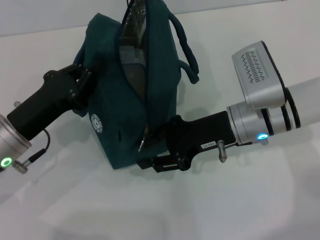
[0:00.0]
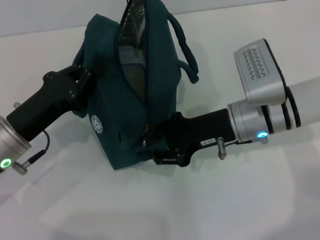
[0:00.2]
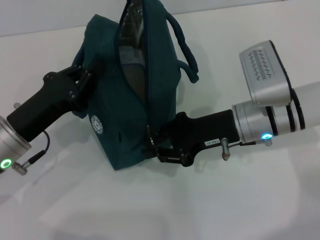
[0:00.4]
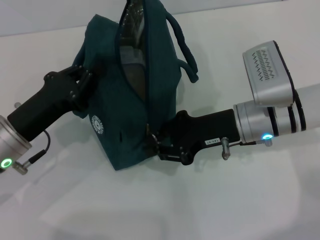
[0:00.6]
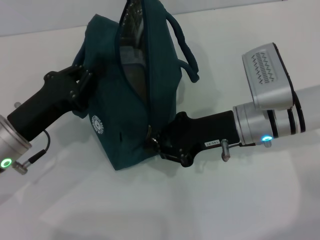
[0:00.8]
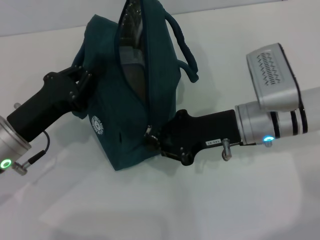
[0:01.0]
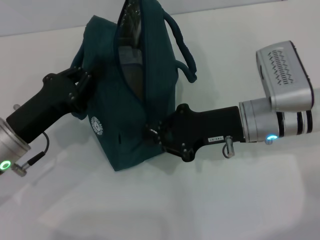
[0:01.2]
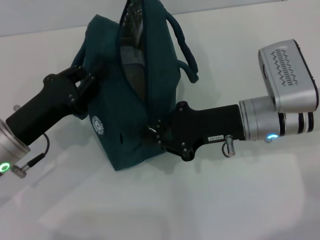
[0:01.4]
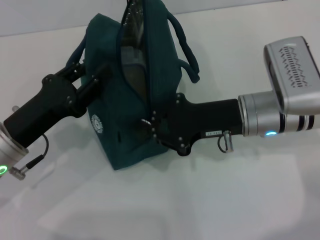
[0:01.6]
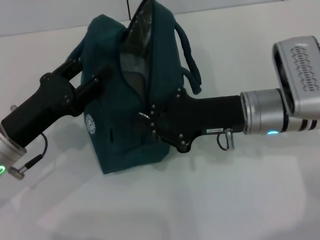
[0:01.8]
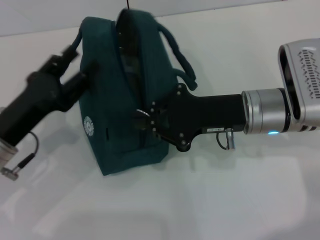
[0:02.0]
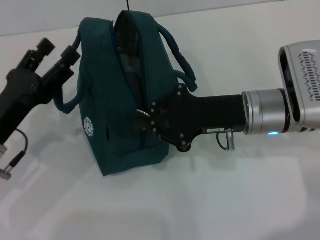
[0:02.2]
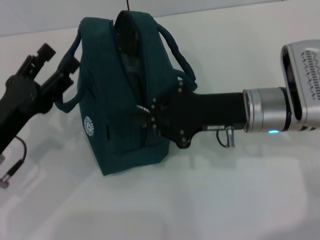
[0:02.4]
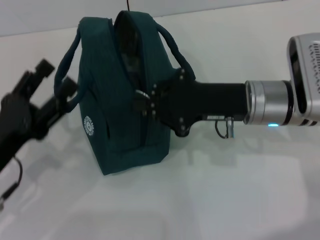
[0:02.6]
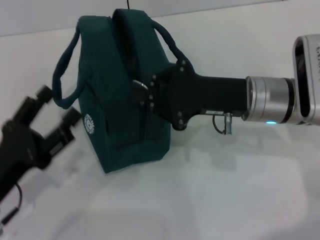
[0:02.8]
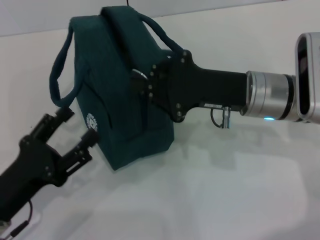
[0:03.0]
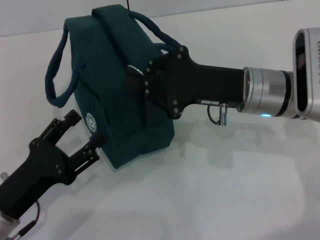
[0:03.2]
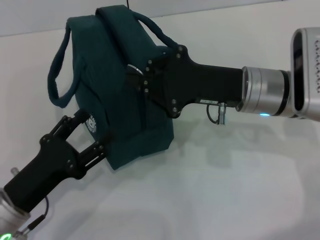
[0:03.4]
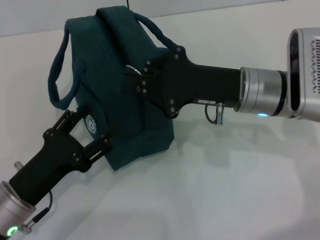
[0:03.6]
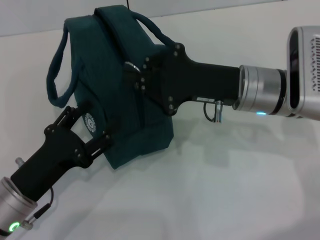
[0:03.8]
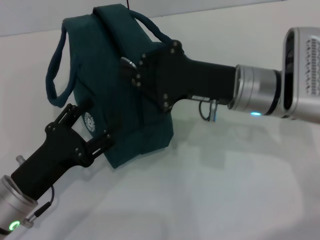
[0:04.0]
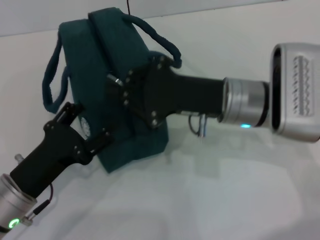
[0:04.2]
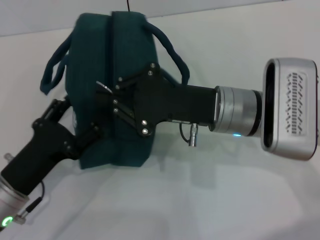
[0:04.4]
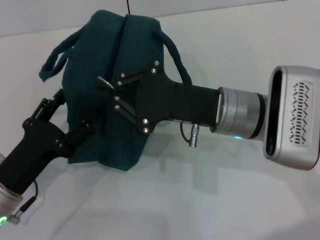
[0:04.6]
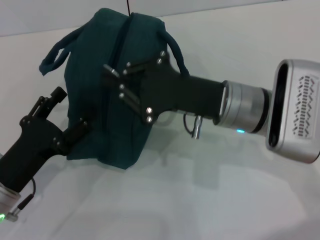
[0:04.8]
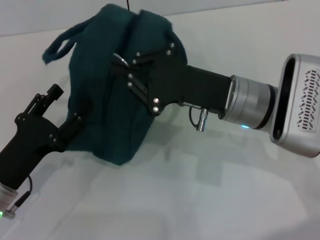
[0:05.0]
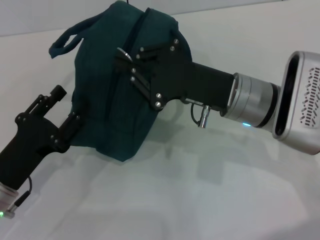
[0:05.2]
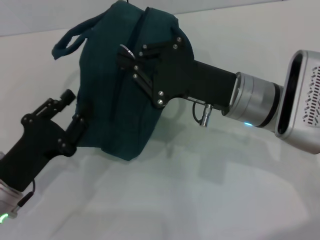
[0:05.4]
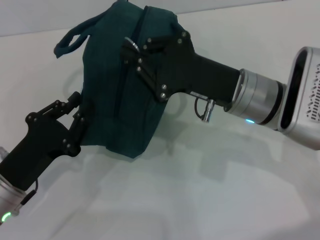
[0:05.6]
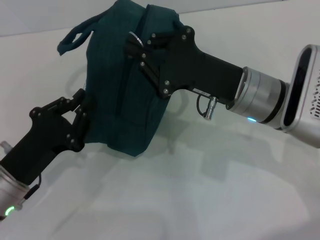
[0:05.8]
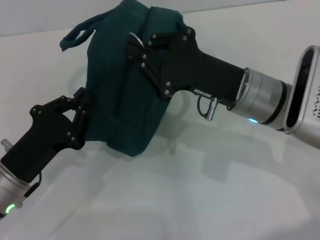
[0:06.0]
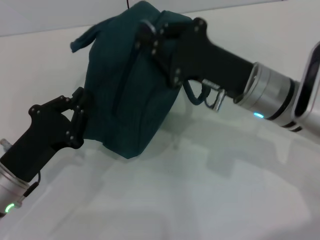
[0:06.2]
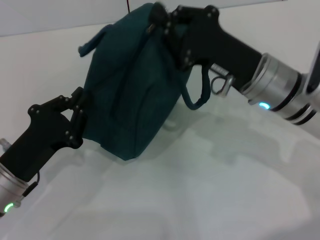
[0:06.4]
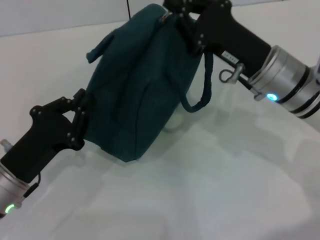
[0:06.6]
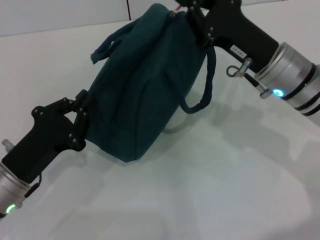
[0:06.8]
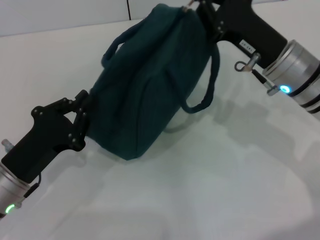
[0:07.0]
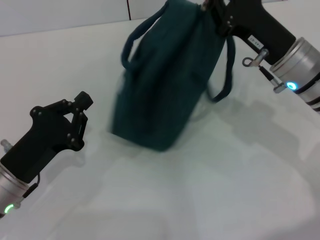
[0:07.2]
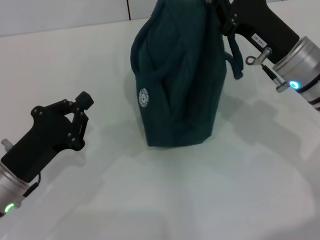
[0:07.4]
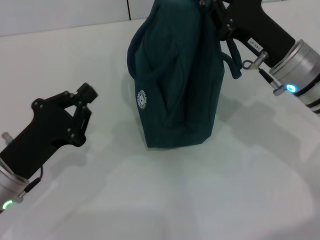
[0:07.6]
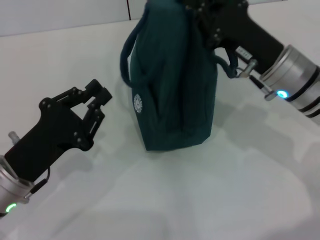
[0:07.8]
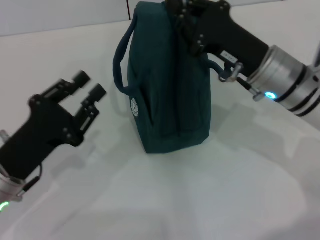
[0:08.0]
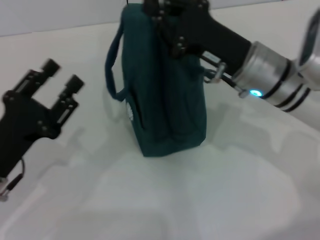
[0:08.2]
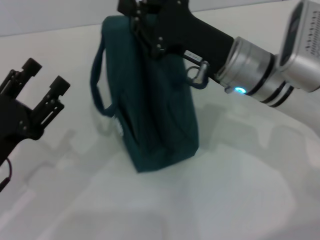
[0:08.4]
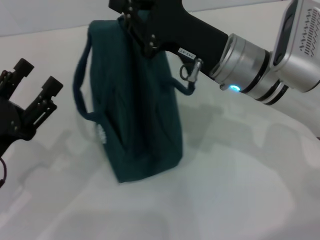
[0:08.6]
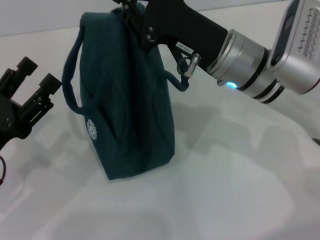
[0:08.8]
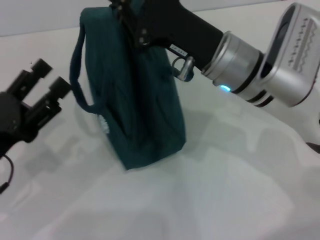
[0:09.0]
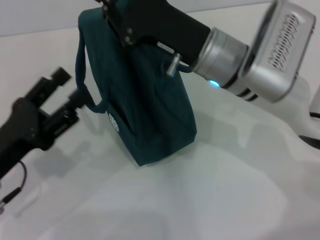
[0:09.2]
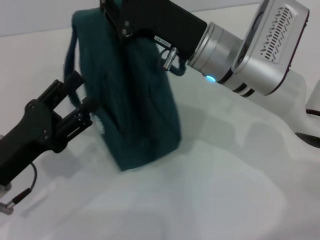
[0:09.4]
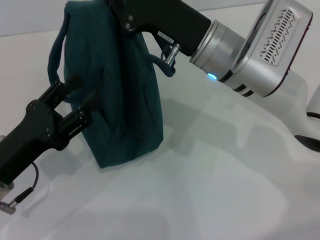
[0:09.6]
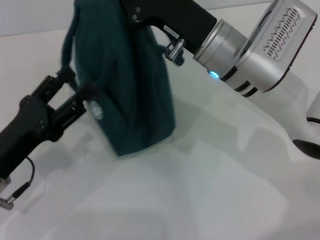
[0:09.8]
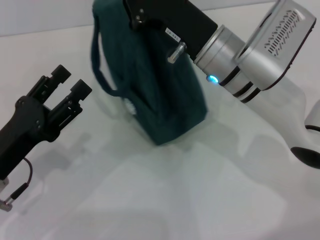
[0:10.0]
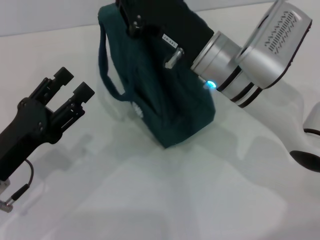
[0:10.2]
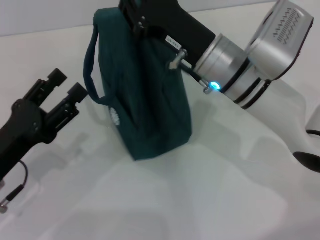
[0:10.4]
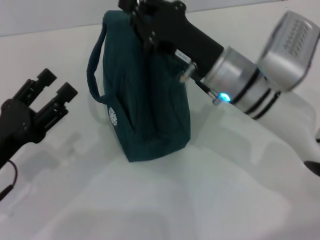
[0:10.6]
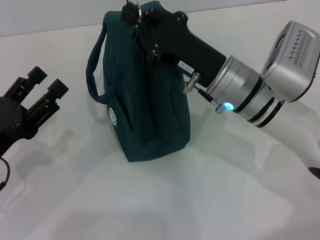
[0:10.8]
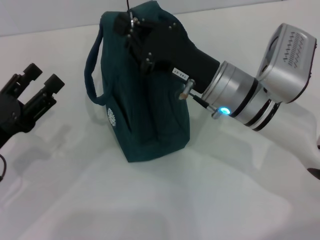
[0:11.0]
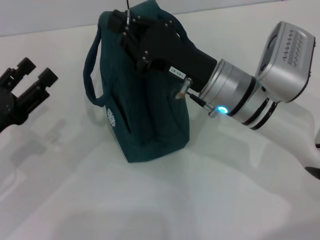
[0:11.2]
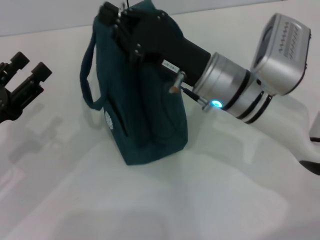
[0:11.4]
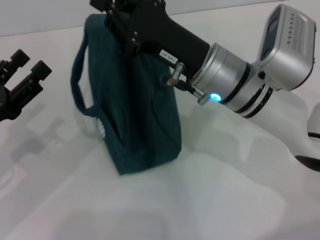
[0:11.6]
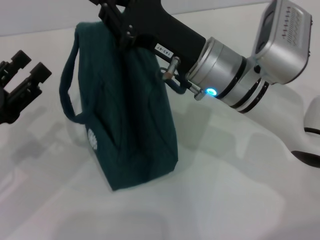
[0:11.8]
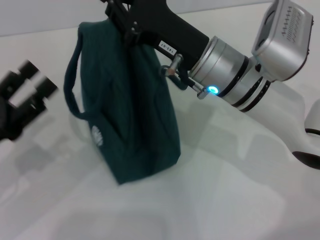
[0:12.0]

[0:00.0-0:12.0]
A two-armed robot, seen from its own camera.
0:00.0 to 0:01.6: The right gripper closes up.
0:01.6 to 0:03.0: The left gripper travels backward by about 10 cm, and opens.
0:04.4 to 0:06.0: The left gripper closes its fingers.
0:06.0 to 0:07.6: The right gripper is displaced to the right by approximately 5 cm.
0:07.6 to 0:09.0: The right gripper heads to the left, covering approximately 10 cm. The left gripper opens its fingers.

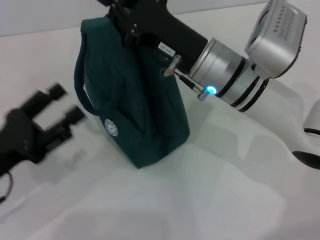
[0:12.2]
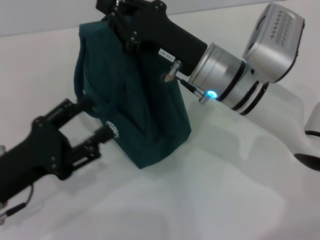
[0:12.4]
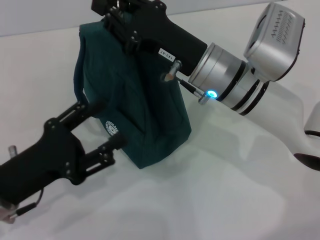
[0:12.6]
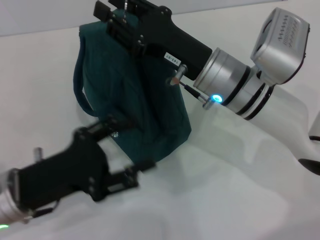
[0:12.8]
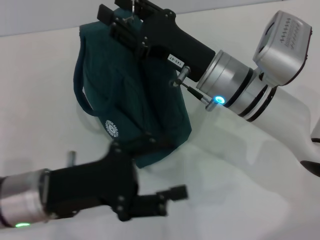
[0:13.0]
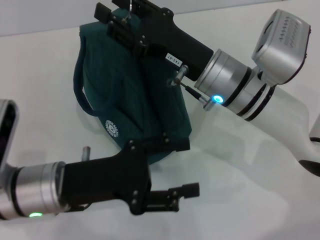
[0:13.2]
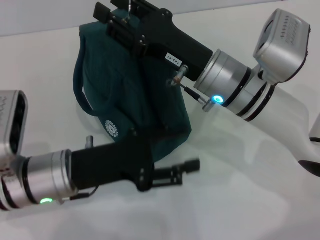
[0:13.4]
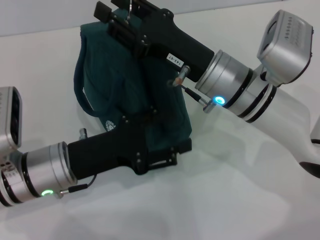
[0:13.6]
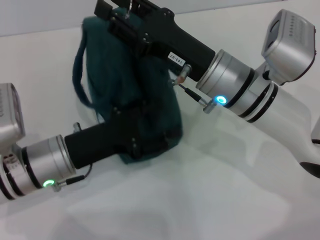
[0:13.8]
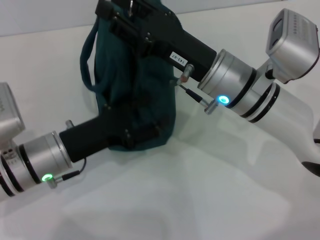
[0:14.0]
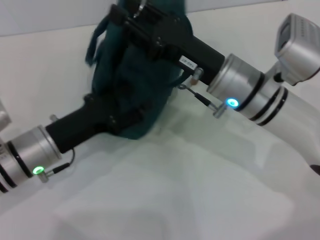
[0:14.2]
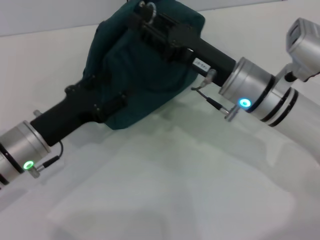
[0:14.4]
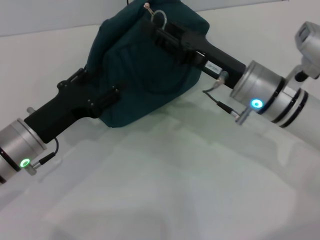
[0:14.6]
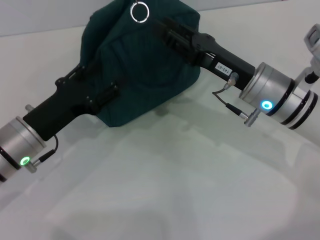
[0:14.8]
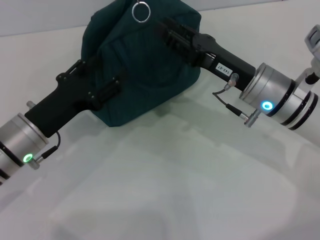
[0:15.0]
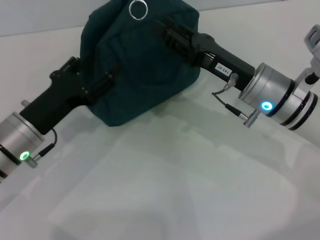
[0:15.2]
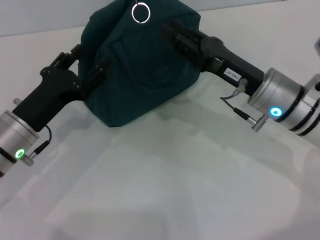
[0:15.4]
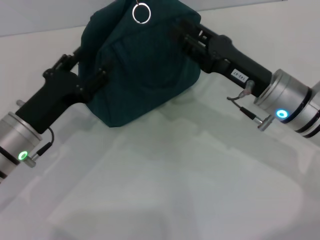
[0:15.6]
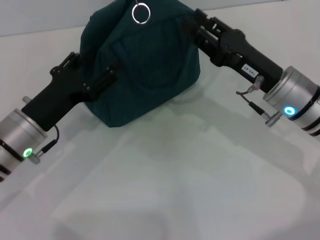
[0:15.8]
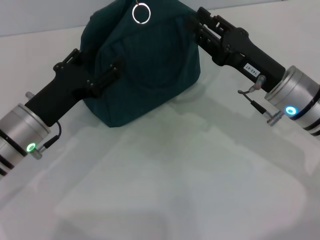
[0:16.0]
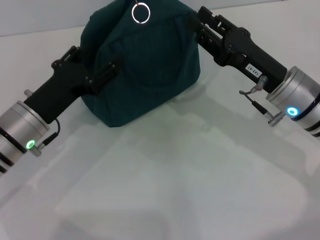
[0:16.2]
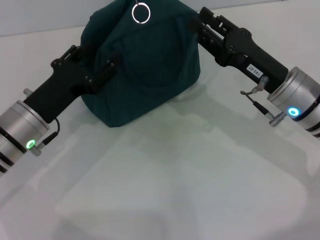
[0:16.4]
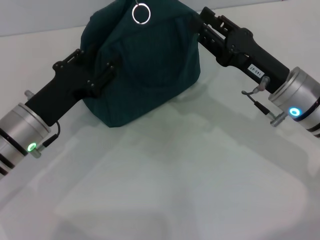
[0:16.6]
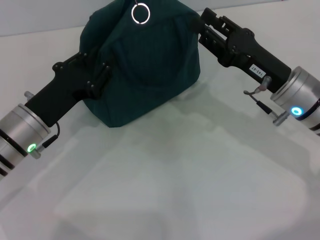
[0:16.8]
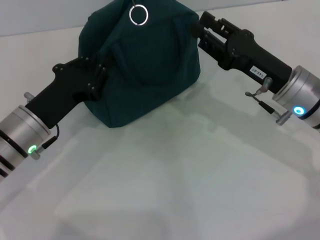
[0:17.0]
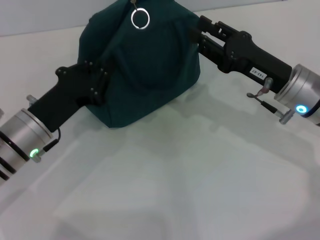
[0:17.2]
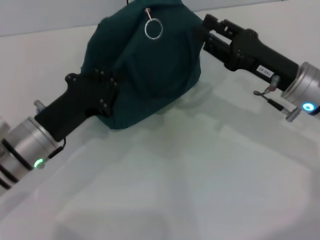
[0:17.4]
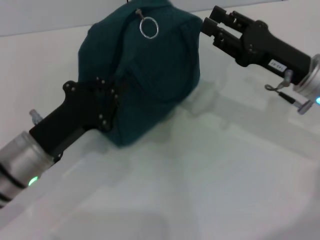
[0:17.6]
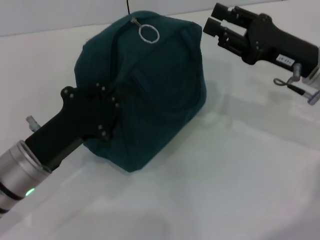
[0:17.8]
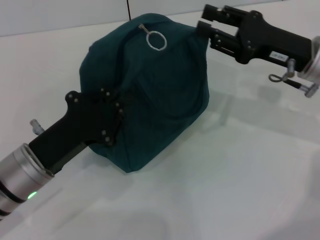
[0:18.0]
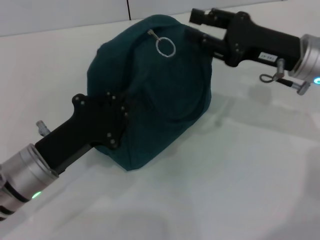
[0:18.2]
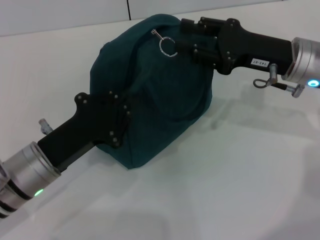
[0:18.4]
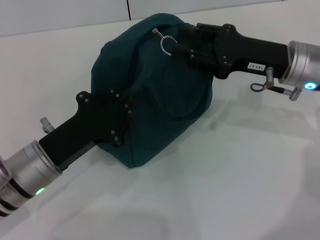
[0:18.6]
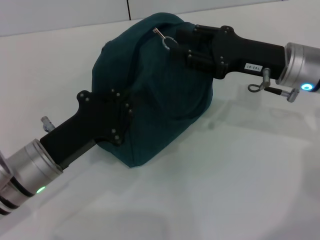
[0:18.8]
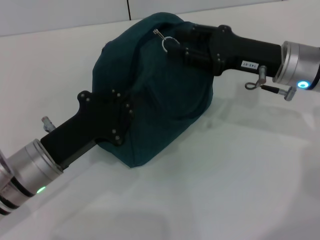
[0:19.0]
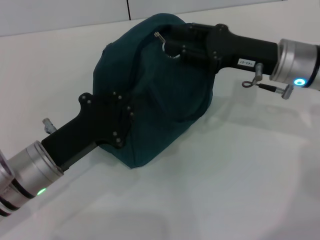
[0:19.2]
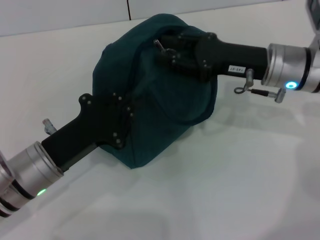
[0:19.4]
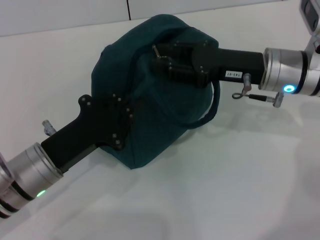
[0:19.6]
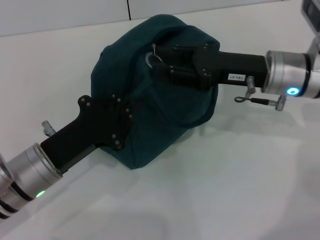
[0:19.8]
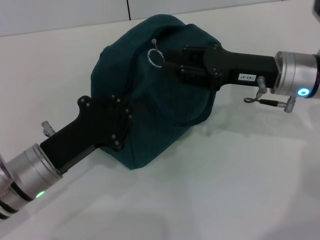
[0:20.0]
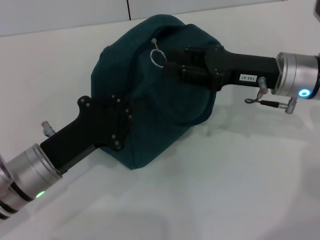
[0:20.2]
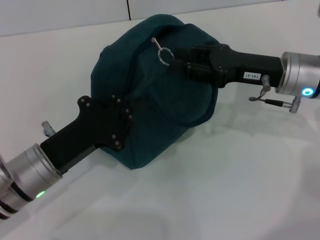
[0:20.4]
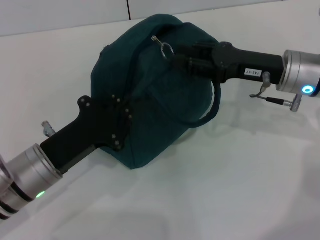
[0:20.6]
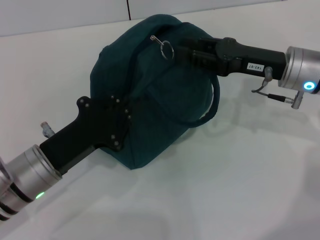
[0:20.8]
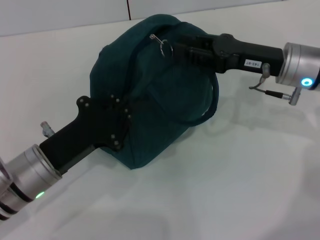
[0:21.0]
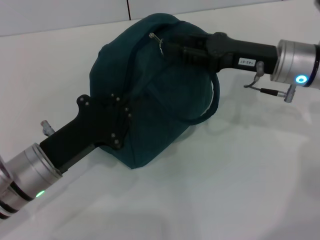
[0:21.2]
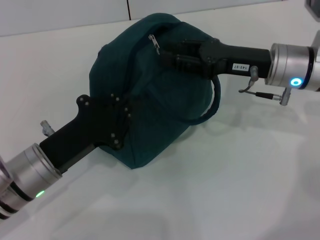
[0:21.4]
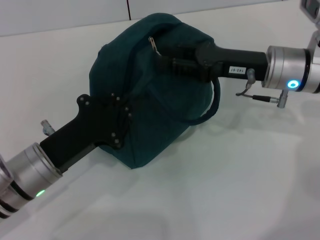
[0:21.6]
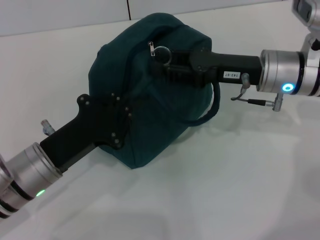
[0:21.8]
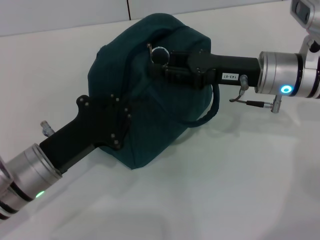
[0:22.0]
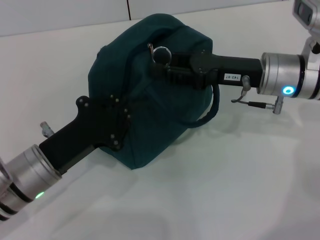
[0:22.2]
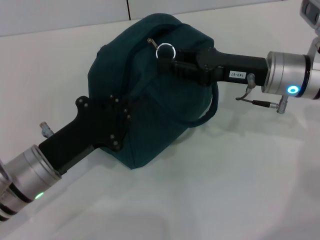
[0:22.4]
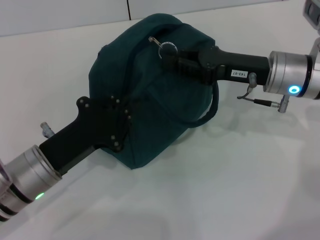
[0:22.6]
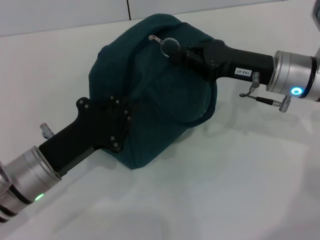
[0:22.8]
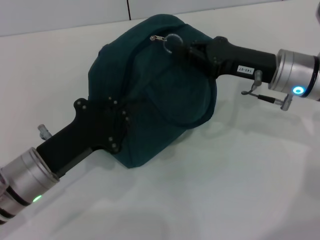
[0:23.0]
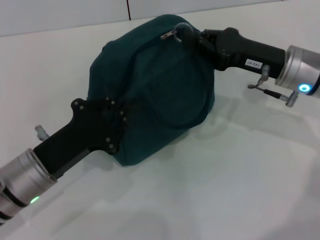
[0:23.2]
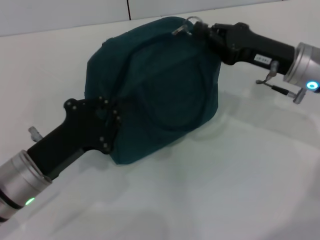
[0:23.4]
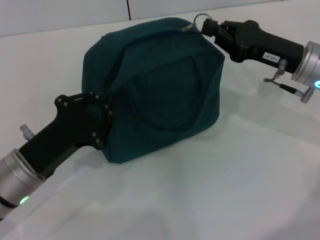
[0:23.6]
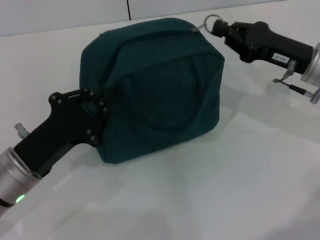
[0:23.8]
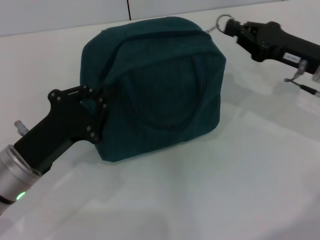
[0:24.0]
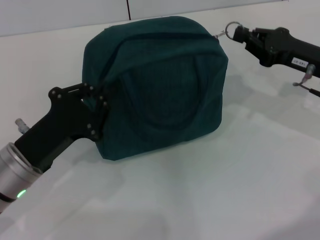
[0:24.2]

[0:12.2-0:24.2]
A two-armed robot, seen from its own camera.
0:12.2 to 0:13.8: The right gripper opens its fingers. The left gripper moves to the right, approximately 10 cm.
0:13.8 to 0:15.2: The right gripper shifts about 5 cm to the right.
0:15.2 to 0:16.6: The grippers make only small movements.
0:16.6 to 0:18.2: The left gripper travels backward by roughly 5 cm, and closes up. Meanwhile the right gripper changes place by approximately 5 cm.
0:18.2 to 0:21.2: The grippers make only small movements.
0:21.2 to 0:22.6: The grippers move only a little.
0:22.6 to 0:24.2: The right gripper heads to the right, covering approximately 10 cm, and closes its fingers.
